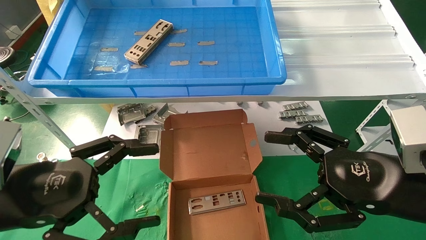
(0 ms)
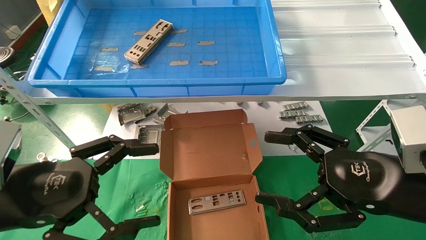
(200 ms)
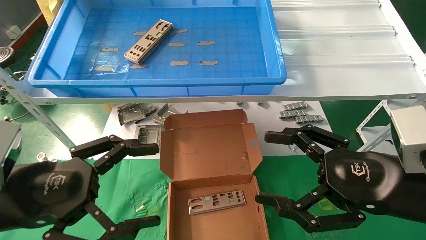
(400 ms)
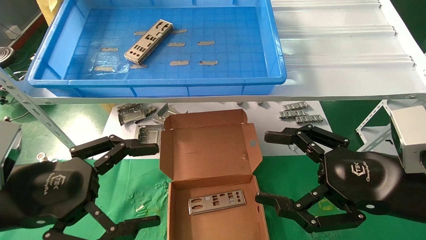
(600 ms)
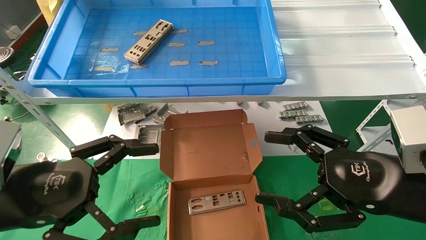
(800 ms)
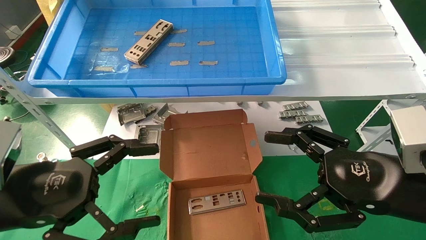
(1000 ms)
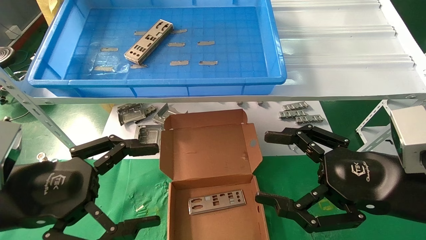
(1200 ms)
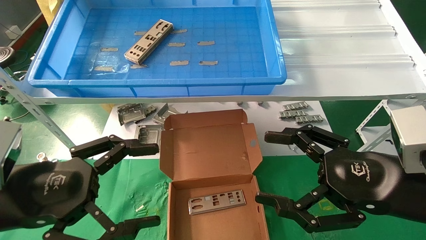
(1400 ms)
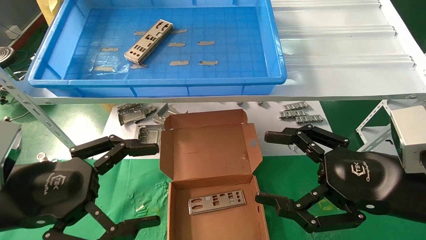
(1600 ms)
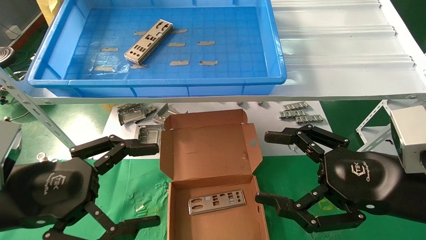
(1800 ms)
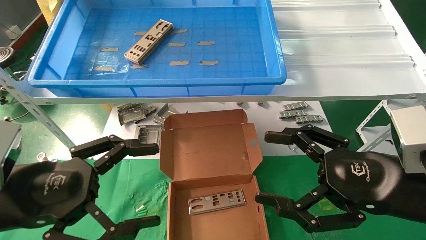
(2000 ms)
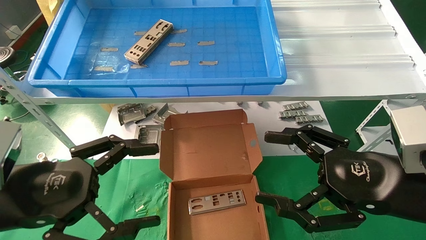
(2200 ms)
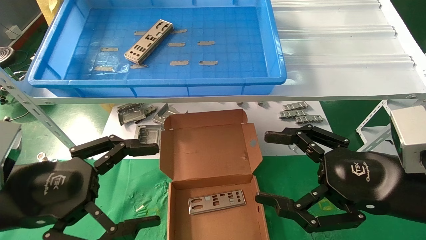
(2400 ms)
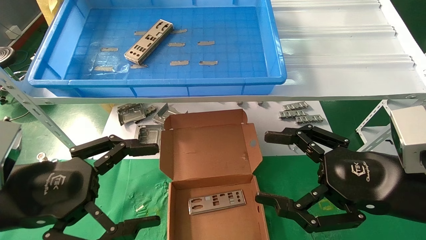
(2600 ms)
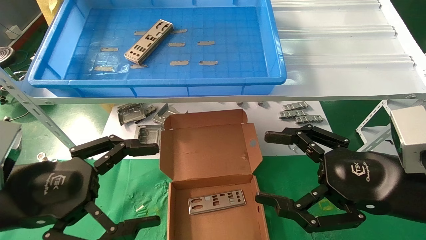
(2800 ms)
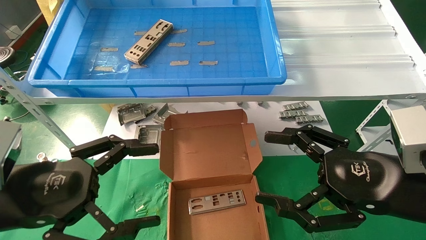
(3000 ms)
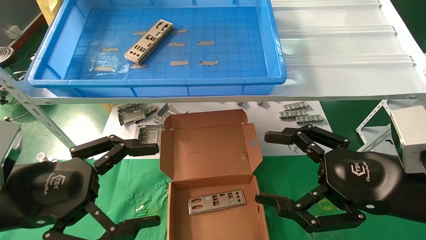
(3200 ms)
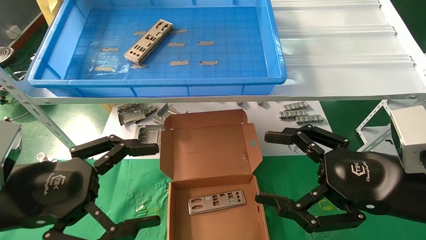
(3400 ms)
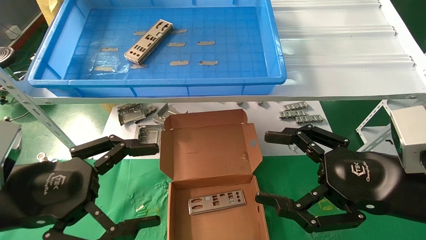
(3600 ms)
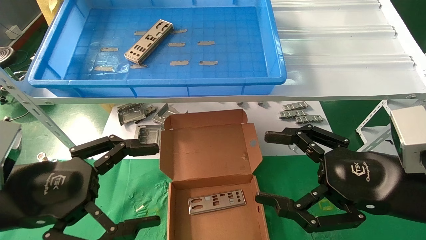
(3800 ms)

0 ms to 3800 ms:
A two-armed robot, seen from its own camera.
Task of the whole recording: pick up the parts on the tray and put them in the cardboard box.
0 ms to 3800 ms: The two grippers keep their place.

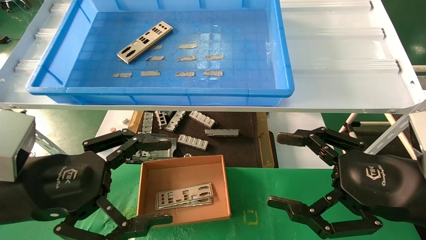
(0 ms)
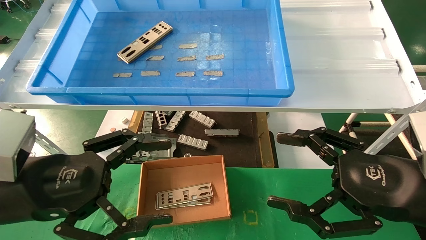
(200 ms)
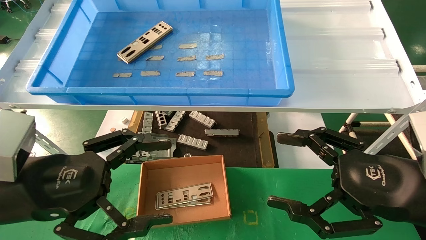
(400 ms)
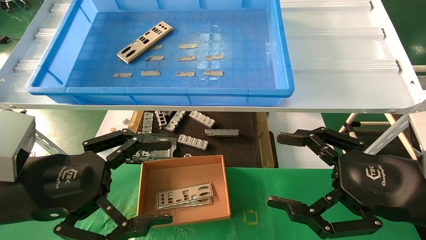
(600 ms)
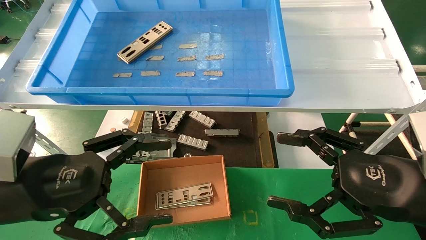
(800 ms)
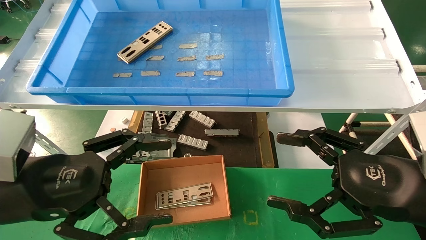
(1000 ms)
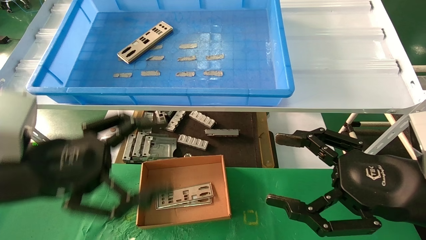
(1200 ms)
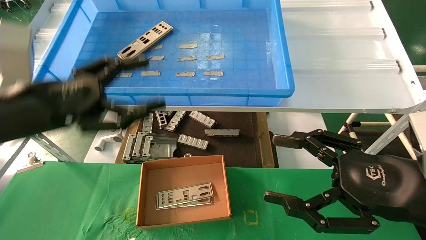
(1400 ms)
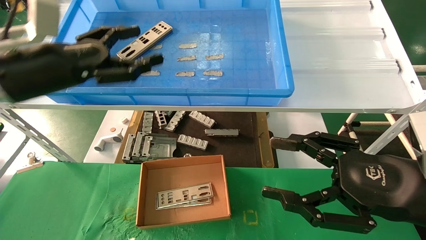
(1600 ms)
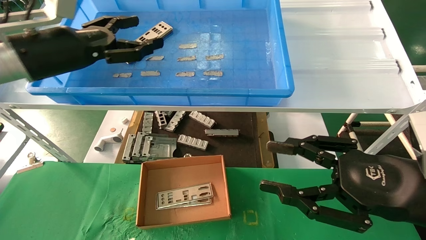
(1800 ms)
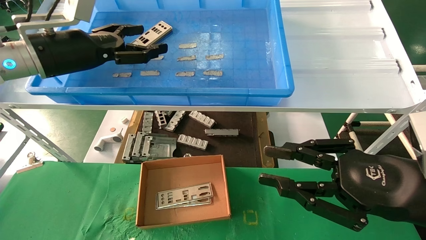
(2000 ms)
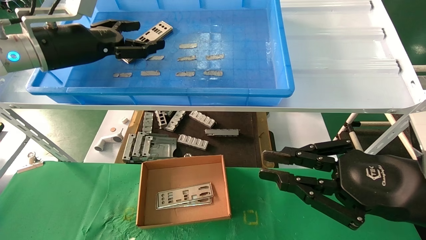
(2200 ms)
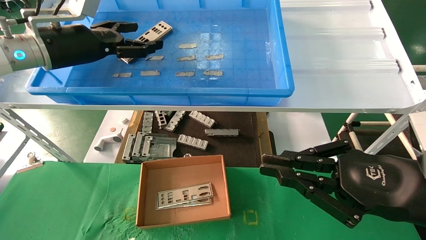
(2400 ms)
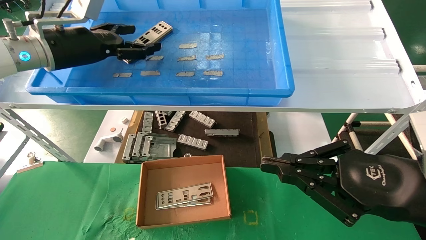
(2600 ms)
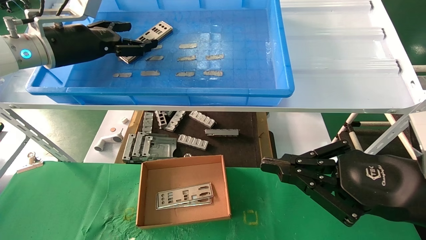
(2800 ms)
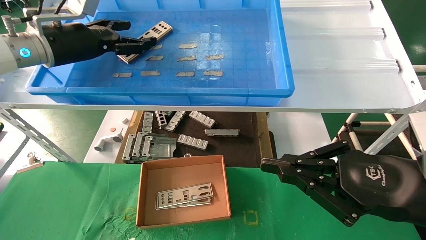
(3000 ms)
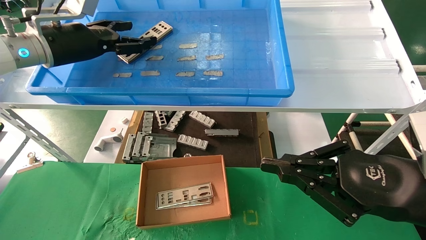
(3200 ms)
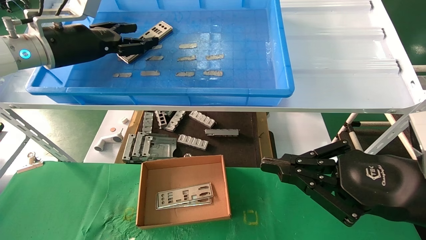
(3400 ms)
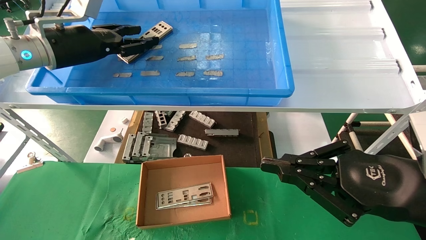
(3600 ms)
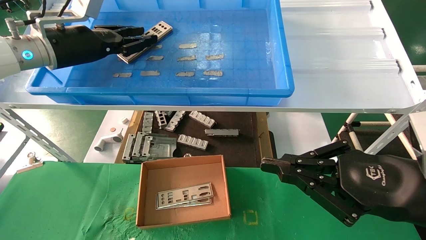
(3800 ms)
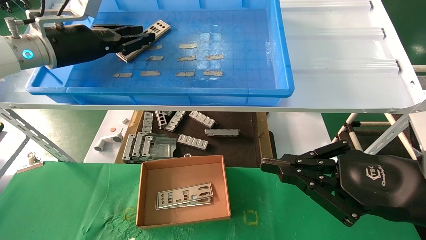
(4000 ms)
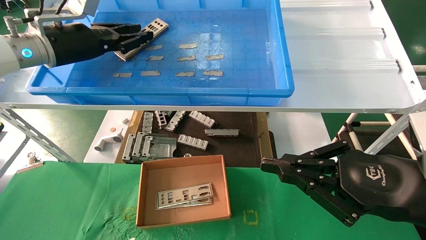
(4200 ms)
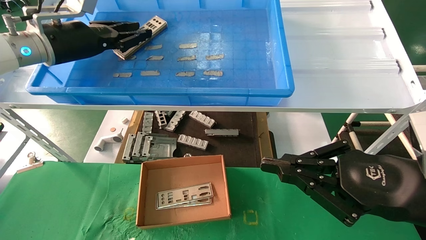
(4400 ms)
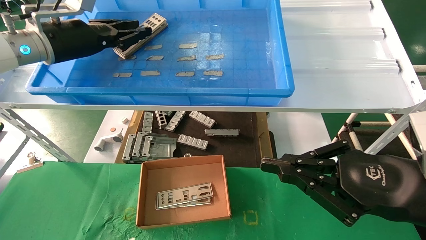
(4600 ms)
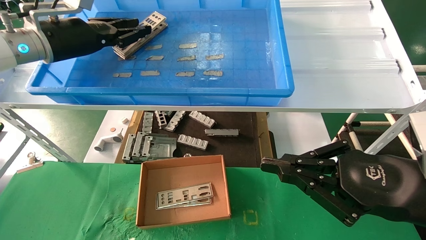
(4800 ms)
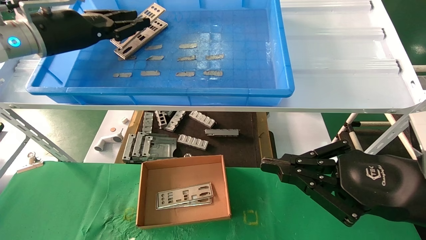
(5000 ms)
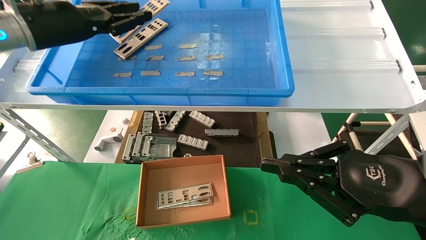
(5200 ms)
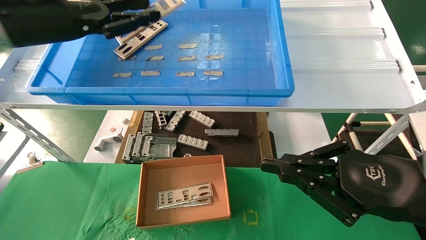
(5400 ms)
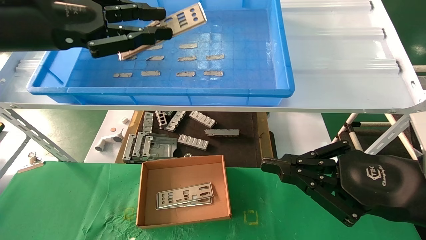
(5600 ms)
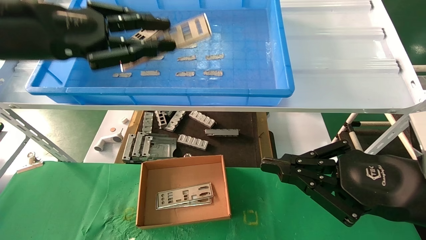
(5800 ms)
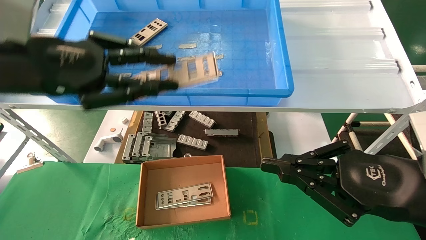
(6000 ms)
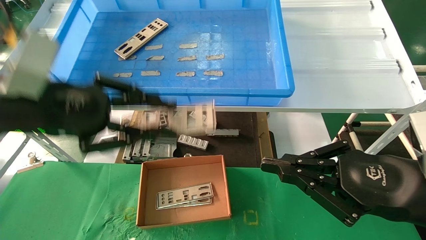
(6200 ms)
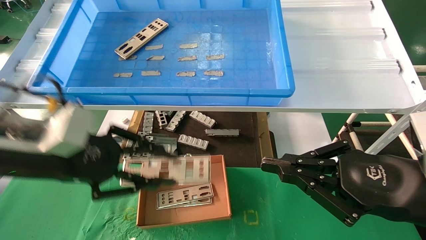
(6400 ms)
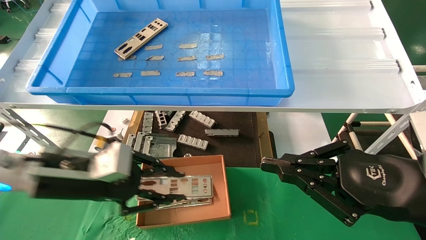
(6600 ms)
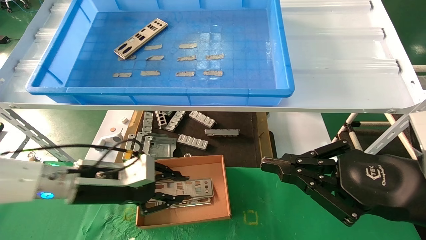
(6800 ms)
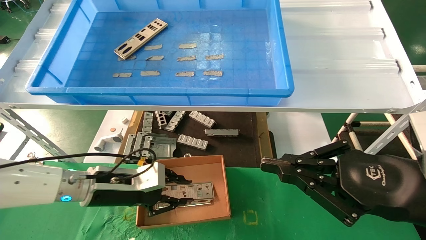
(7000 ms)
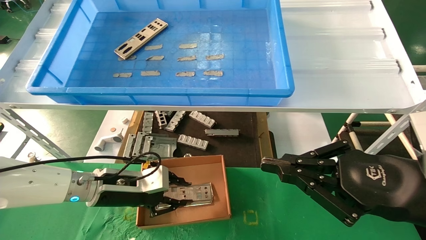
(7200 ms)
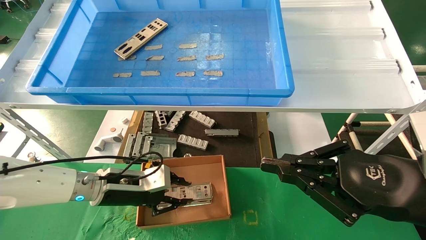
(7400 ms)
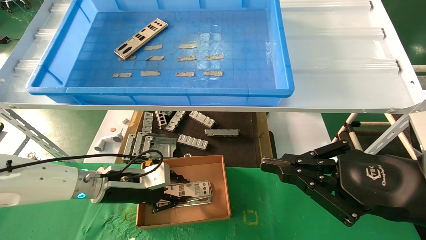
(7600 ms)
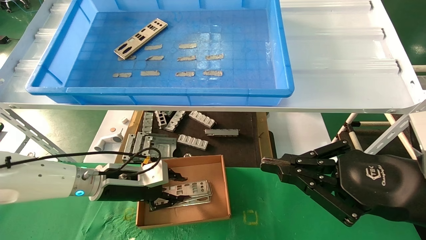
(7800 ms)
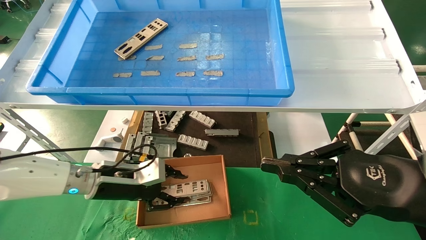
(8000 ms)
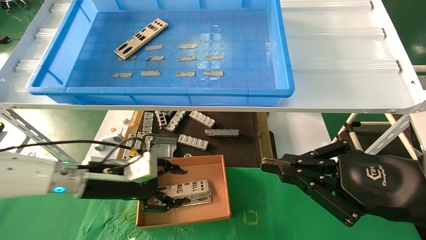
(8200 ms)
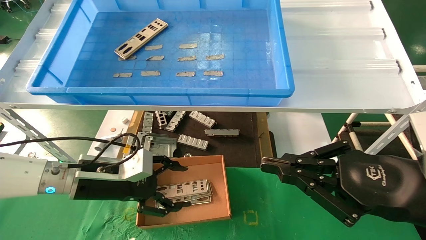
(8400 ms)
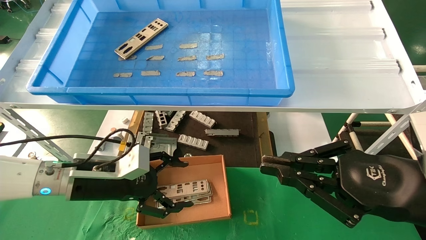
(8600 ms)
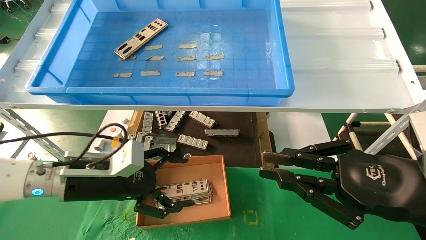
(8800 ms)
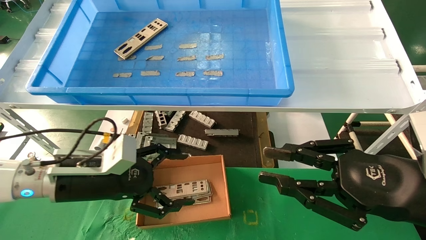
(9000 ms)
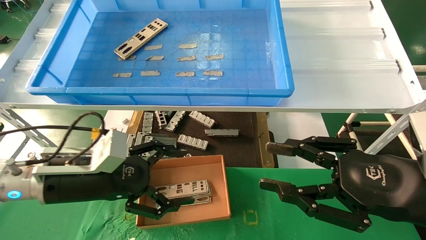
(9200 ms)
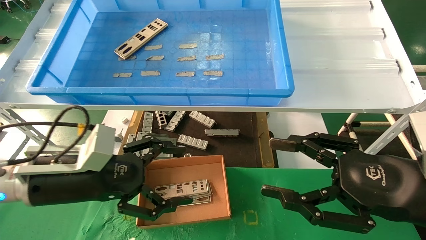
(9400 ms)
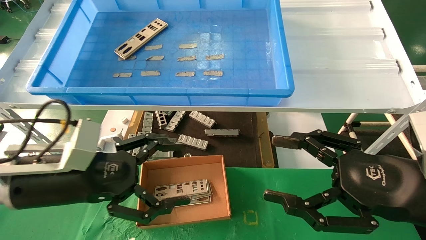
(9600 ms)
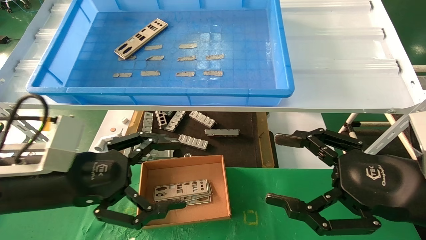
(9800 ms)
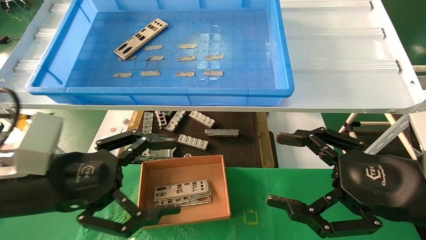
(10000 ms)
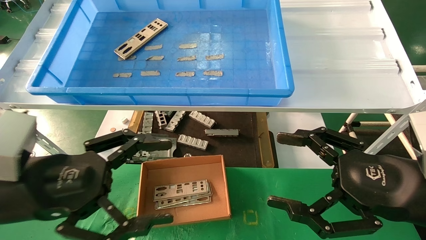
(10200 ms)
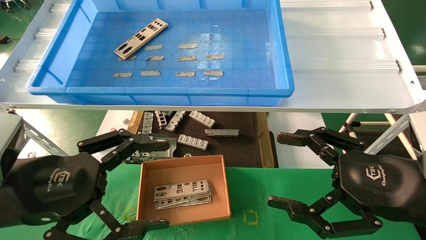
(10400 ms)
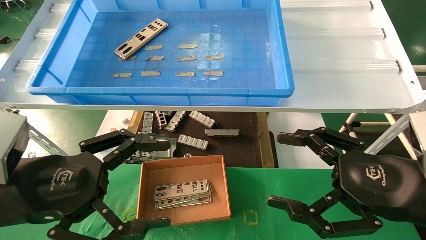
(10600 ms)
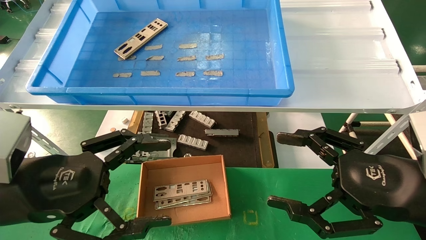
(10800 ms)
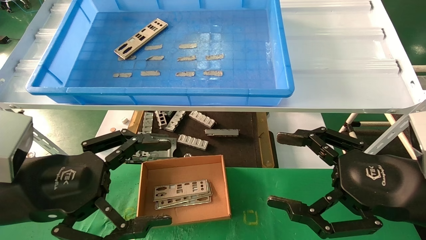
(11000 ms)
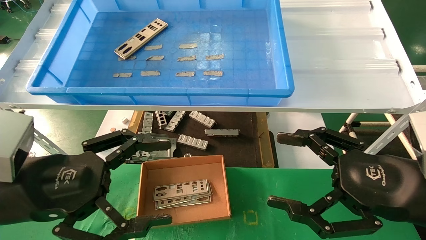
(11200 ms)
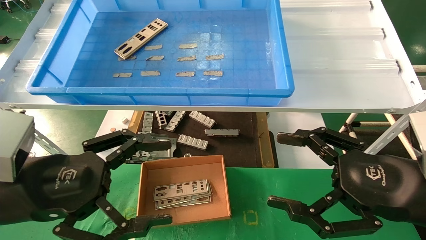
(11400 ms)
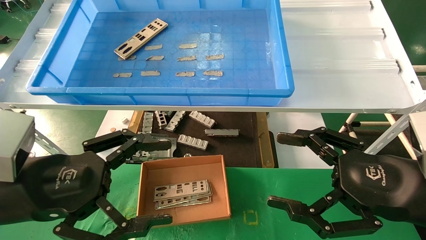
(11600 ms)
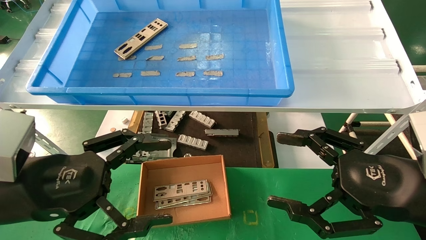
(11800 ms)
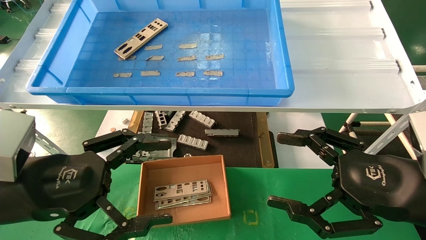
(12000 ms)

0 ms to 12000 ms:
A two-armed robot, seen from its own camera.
Task of the whole recording: pick up the parts on the tray and put them in the cardboard box.
Step, 1600 ms to 4000 ms: Pick up the IO bracket from the container box.
Step, 4200 ms to 8000 ms: Place the IO bracket into the ingredient slot.
0 ms to 1600 ms: The left gripper heads forward and upward, covering roughly 15 cm.
1600 ms to 3000 ms: The left gripper is displaced forward by about 10 cm. The right gripper closes its fingers.
3000 ms to 4400 ms: The left gripper closes.
4400 ms to 6000 ms: The left gripper shifts about 15 cm backward.
6000 ms to 7600 ms: The left gripper shifts roughly 30 cm downward and forward.
7600 ms to 9000 ms: The left gripper is displaced backward and upward by approximately 10 cm, and opens.
9000 ms to 10400 ms: The left gripper shifts approximately 10 cm backward and upward. Meanwhile the right gripper opens.
10400 ms to 12000 ms: Both grippers stay about where they are.

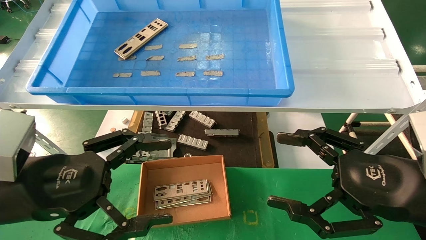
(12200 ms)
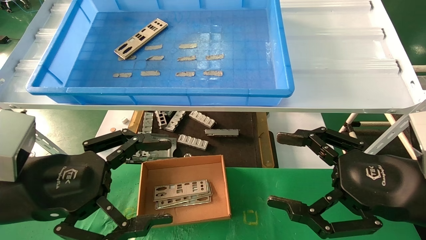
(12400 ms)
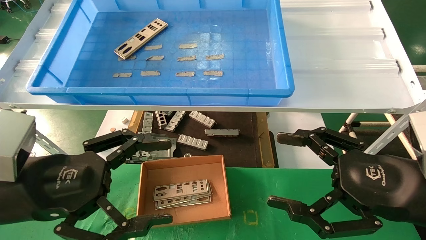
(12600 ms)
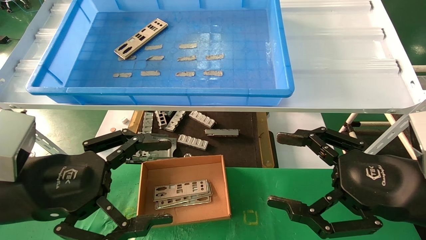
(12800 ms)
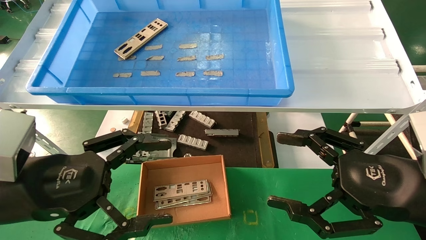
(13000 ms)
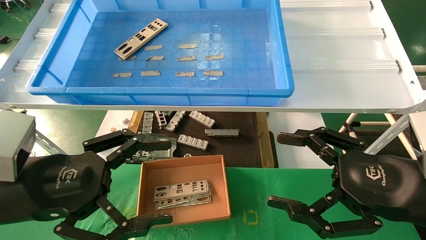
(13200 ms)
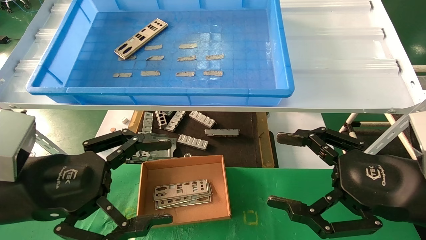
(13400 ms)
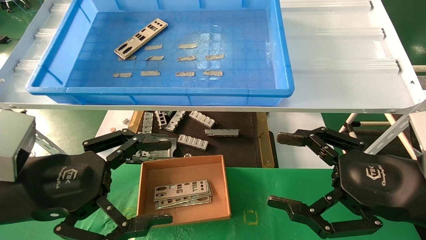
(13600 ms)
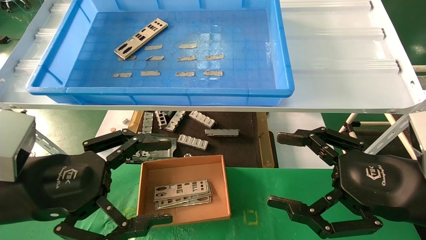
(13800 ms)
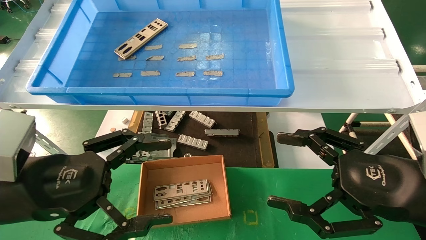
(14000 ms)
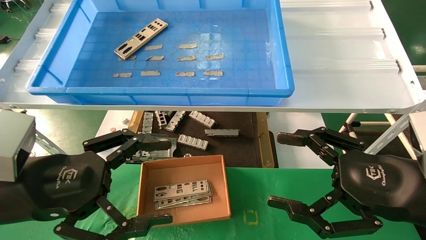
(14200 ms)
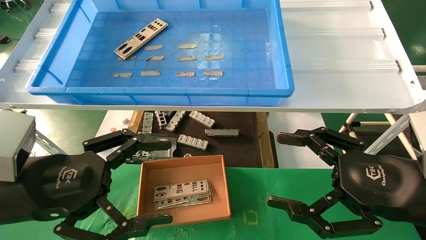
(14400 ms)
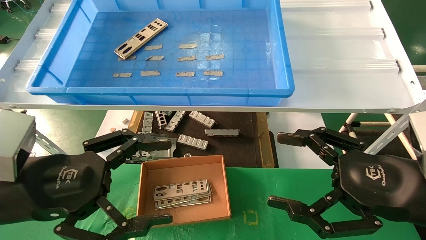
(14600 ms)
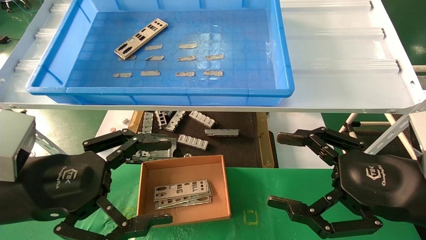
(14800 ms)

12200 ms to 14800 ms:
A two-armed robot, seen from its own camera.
Task of the whole recording: pick up the parts on the tray and put them in the cardboard box.
12200 ms to 14800 ms: Both grippers stay about where they are.
